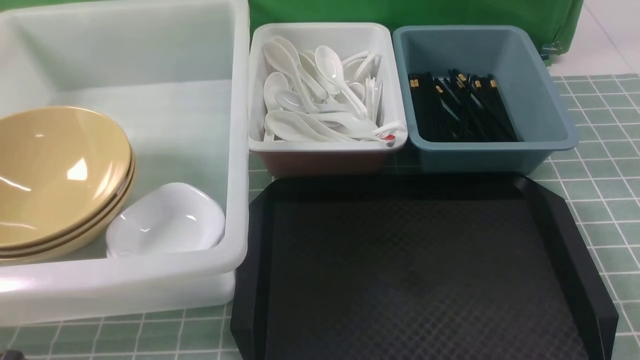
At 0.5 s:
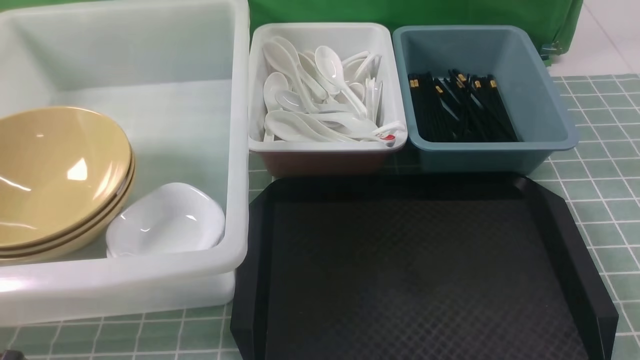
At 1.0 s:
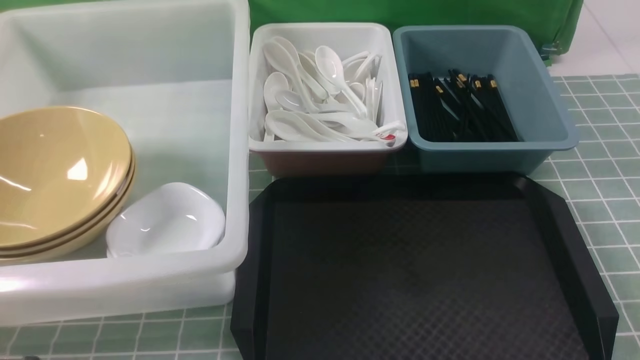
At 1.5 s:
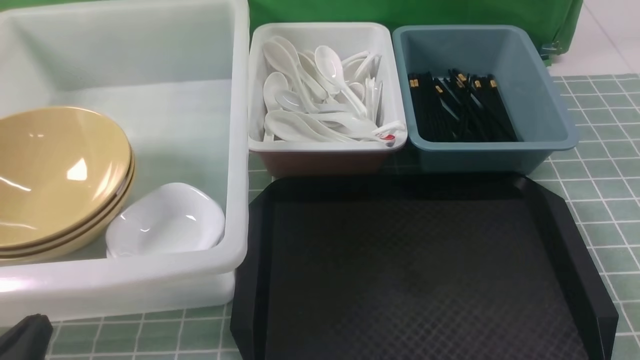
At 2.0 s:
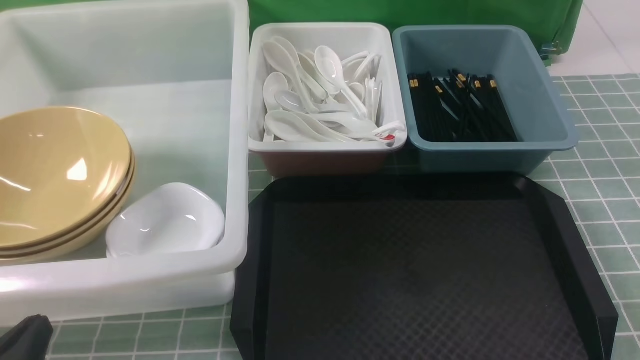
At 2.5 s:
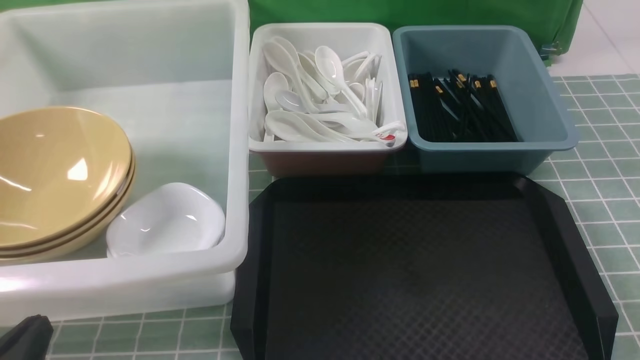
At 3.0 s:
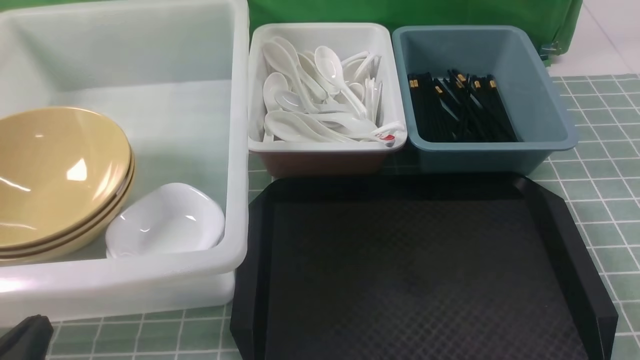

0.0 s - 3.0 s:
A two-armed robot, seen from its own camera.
Task of the whole recording: on blue table put chopsticks spoon bowls plates into blue grey white boxes.
0.0 s - 1.5 s: The left gripper moves downward, roughly 10 cm.
1.5 s - 3.0 s: Neither gripper changes place.
